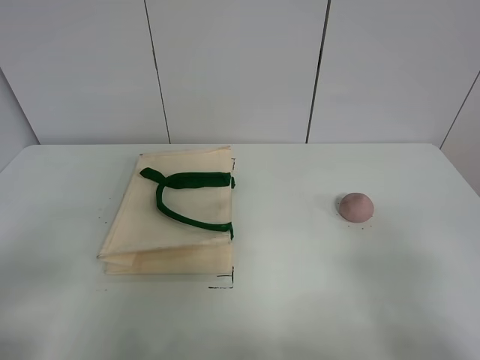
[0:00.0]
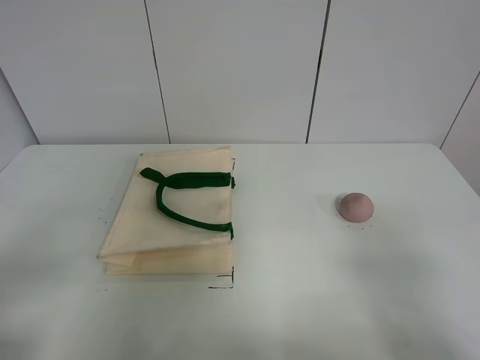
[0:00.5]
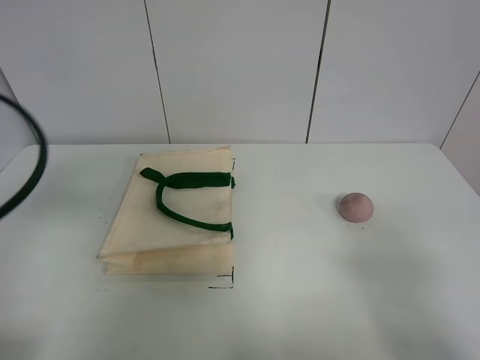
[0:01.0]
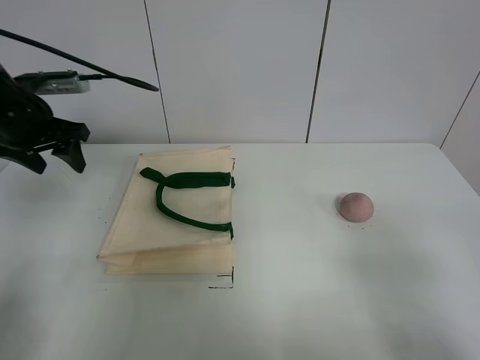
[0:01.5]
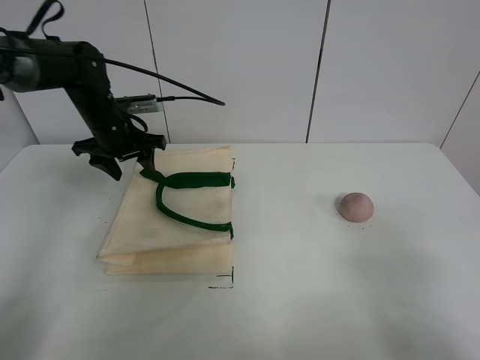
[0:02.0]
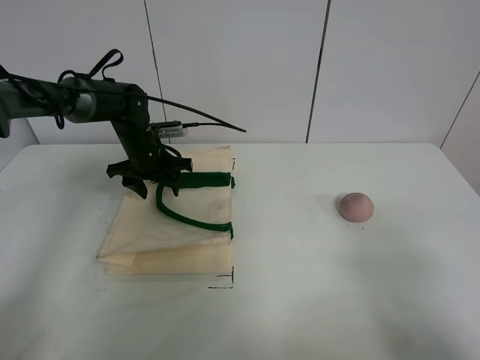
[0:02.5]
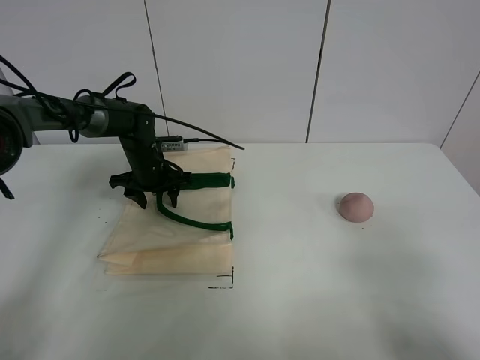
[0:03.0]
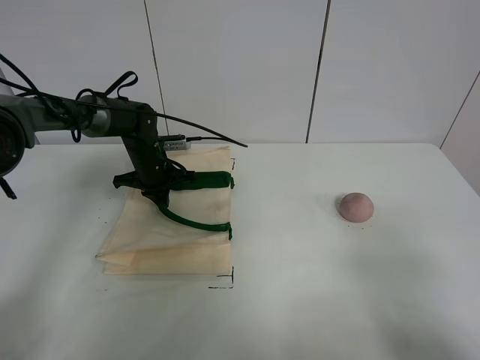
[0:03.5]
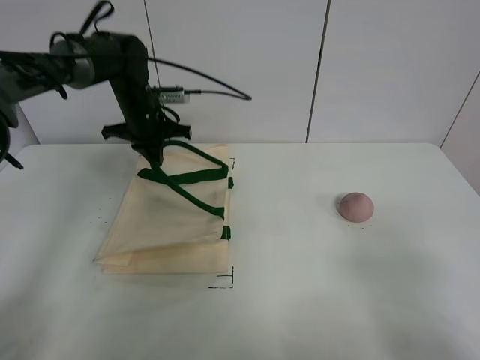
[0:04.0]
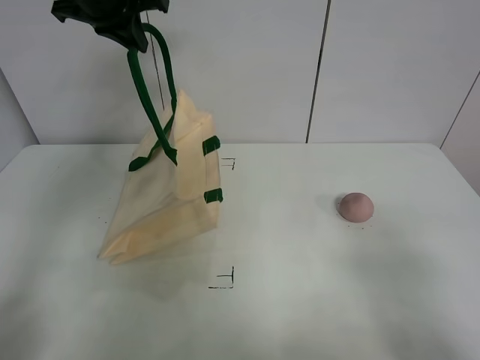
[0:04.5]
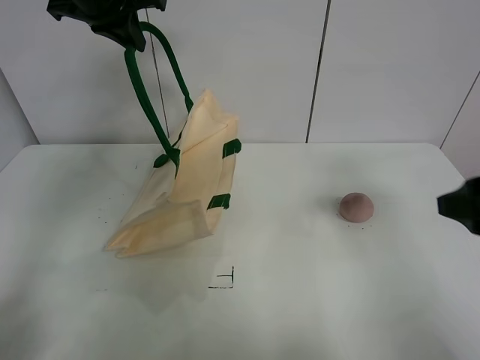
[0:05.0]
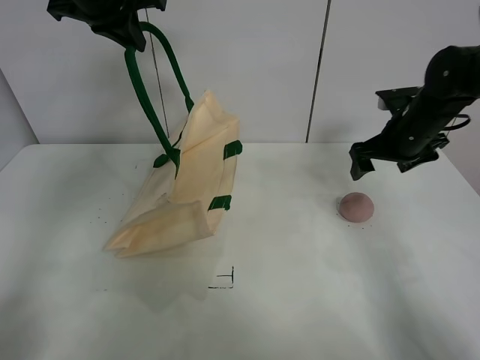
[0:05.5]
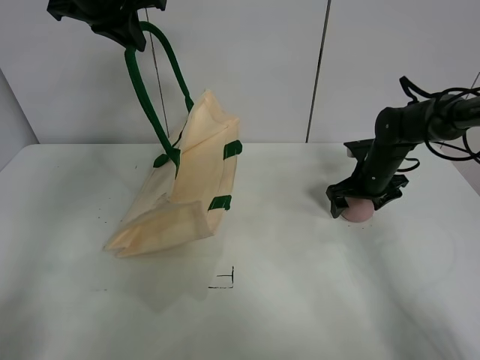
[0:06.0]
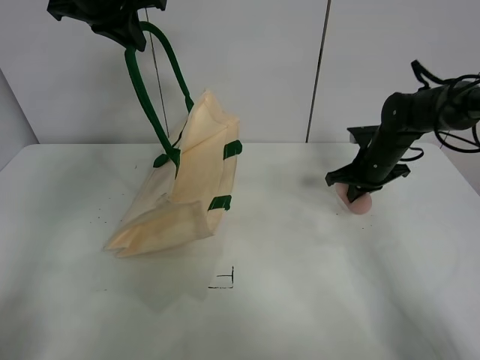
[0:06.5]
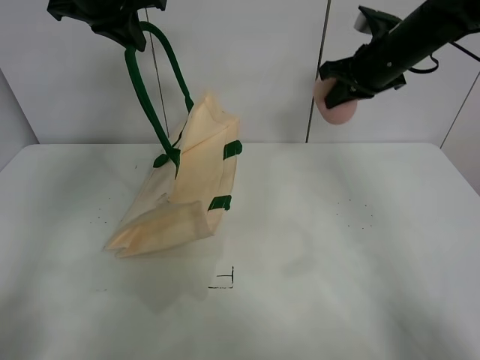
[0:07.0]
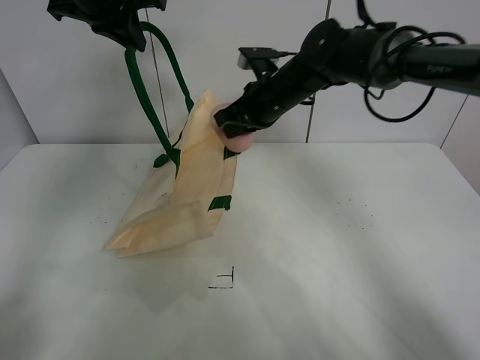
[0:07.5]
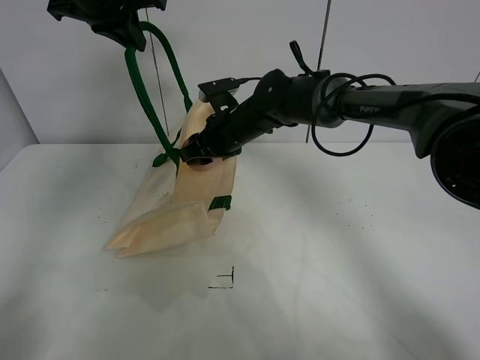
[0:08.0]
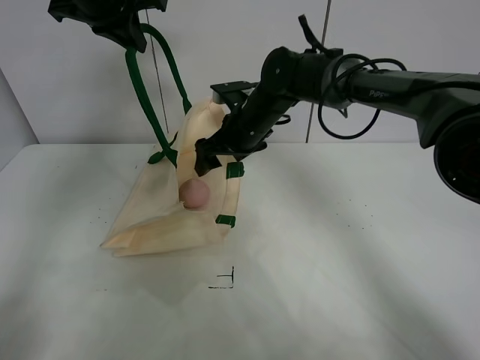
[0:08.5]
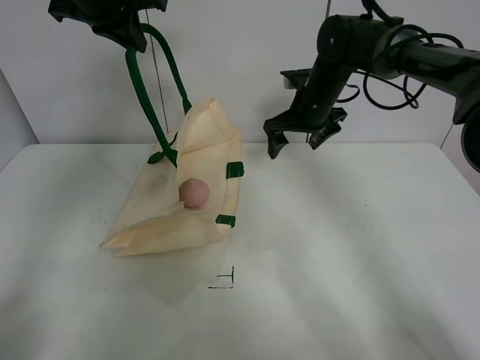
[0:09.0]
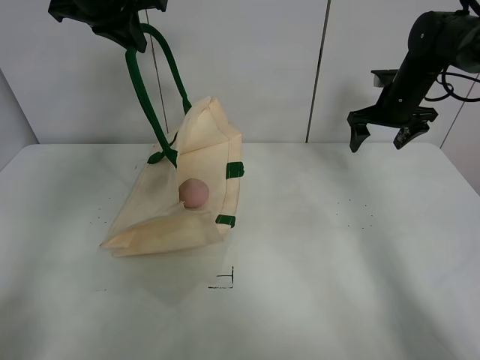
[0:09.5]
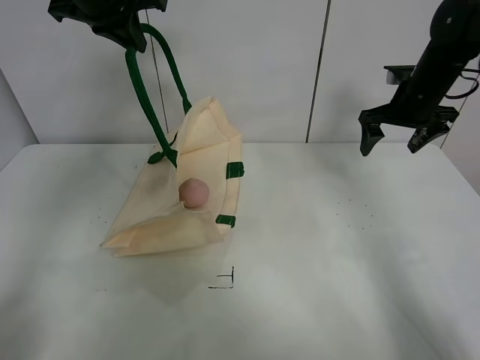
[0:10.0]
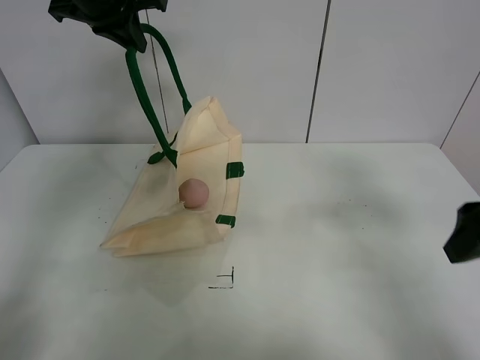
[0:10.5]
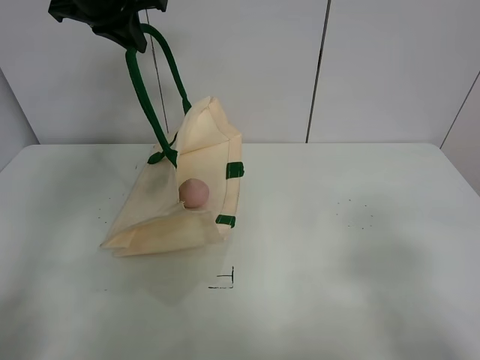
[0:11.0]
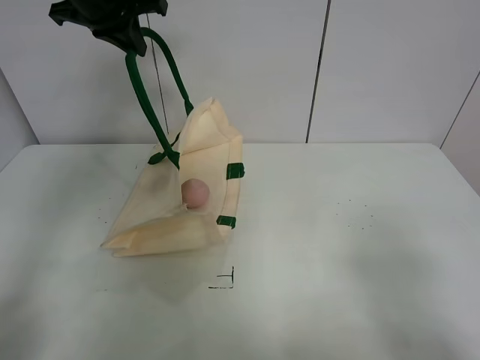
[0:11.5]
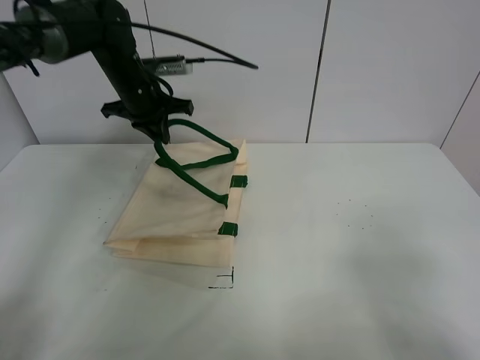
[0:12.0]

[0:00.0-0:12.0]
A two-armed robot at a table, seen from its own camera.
Task of the whole recording: open the white linen bag and put the peach in the bag.
Step, 0:00.0 to 0:04.5: Lift the handbag with left gripper.
Step, 0:05.0 to 0:06.0: Grasp the peach with right gripper.
Step, 0:06.5 to 0:08.5: Place the peach in the handbag with right gripper.
0:00.0 to 0:02.0: The left gripper goes roughly 40 cm forward.
0:02.0 to 0:04.0: The left gripper reaches roughly 10 cm downward, then returns, and closes.
0:04.0 to 0:06.0: The right gripper goes about 40 cm forward. Meanwhile the left gripper is displaced upward by about 20 cm.
0:06.0 to 0:08.0: The right gripper shifts approximately 25 cm to the left, and closes, then reopens.
0:08.0 to 0:10.0: The right gripper is displaced to the right by some 30 cm.
0:10.0 to 0:12.0: The right gripper is displaced backward by some 40 cm. Meanwhile the left gripper is displaced downward by roughly 15 cm.

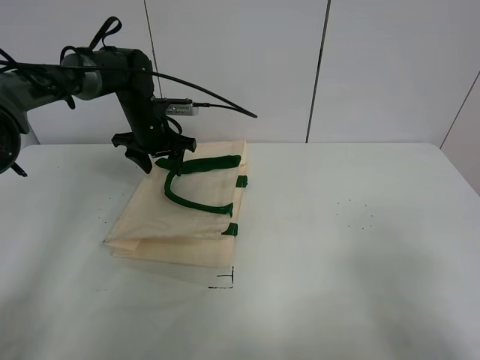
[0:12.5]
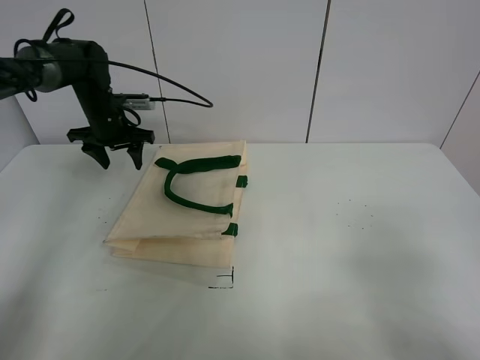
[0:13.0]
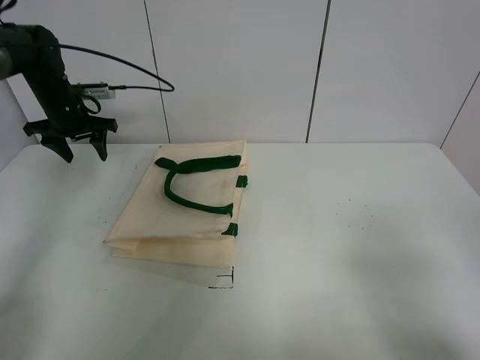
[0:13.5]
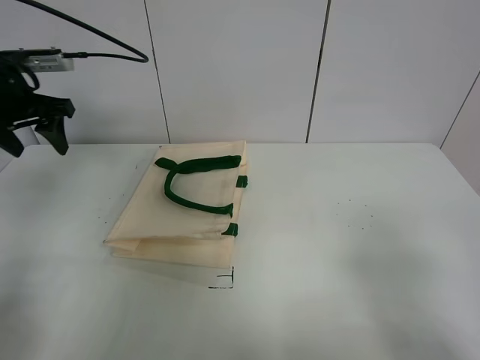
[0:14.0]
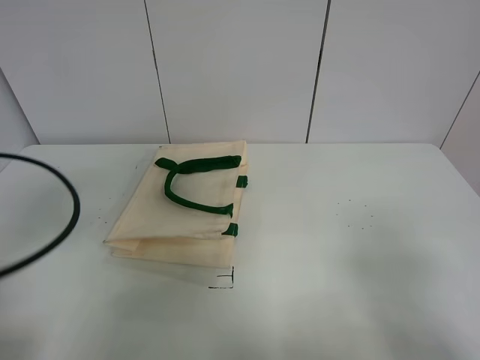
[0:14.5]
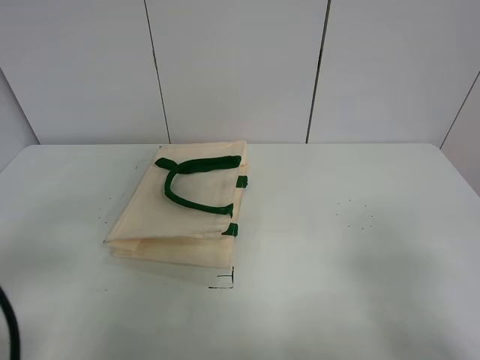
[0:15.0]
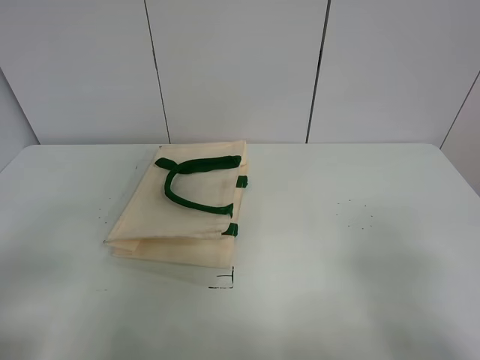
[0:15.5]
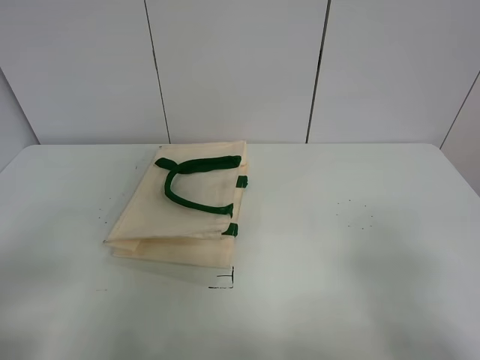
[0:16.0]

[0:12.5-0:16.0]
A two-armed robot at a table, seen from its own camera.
Task of the whole recording: open the white linen bag and put the peach in the bag.
0:12.5 to 0:14.5: The left gripper moves backward and to the left, about 40 cm.
0:14.5 to 0:16.0: The left gripper shifts about 10 cm backward.
